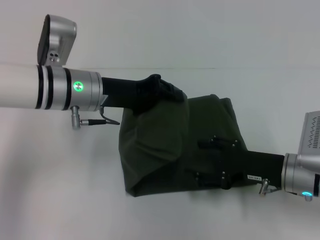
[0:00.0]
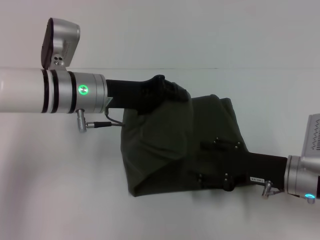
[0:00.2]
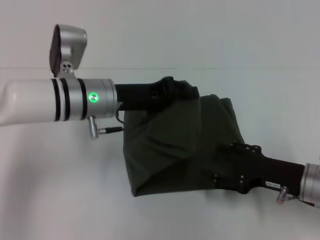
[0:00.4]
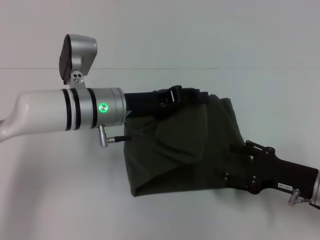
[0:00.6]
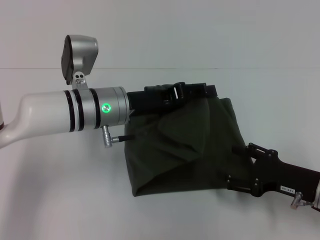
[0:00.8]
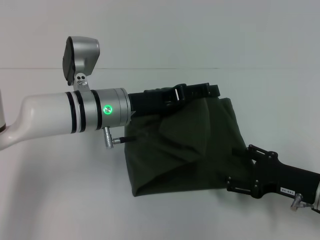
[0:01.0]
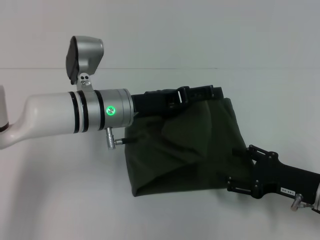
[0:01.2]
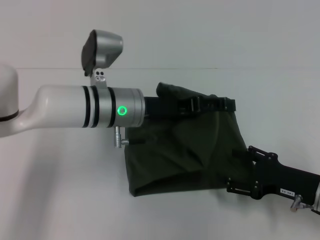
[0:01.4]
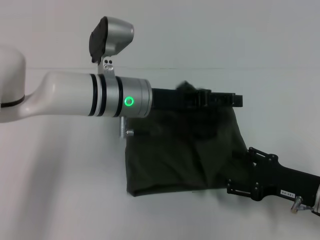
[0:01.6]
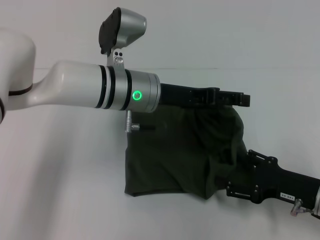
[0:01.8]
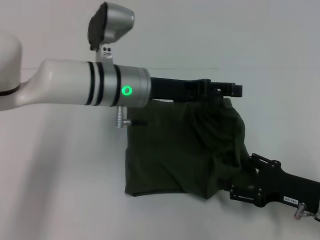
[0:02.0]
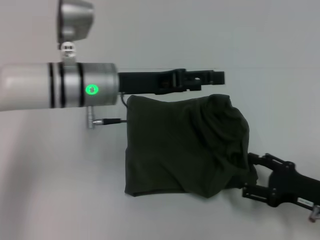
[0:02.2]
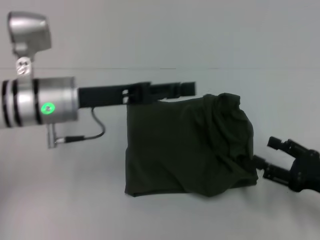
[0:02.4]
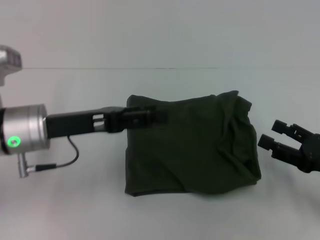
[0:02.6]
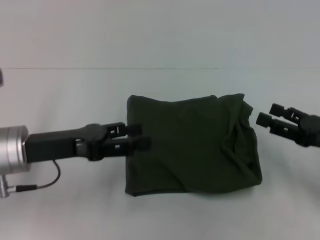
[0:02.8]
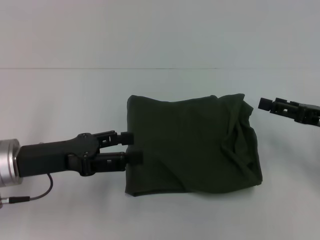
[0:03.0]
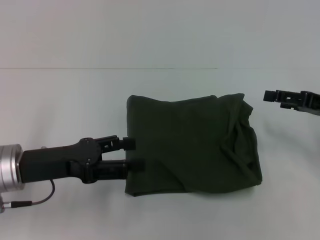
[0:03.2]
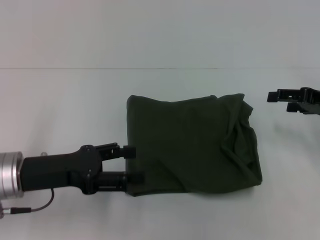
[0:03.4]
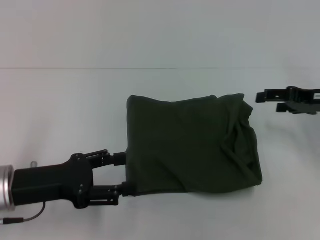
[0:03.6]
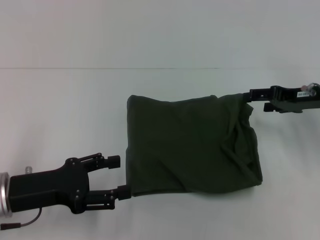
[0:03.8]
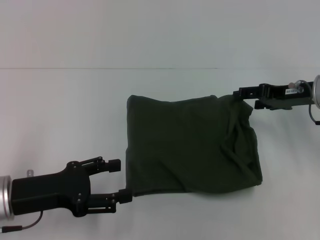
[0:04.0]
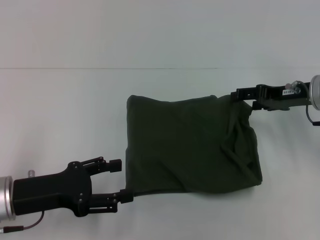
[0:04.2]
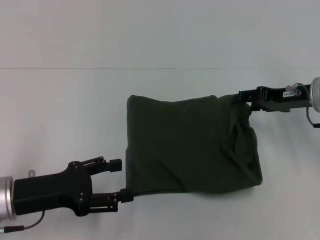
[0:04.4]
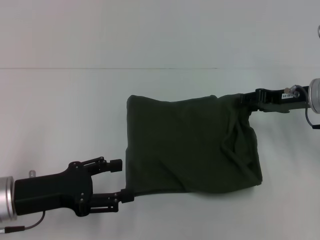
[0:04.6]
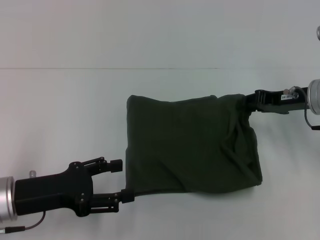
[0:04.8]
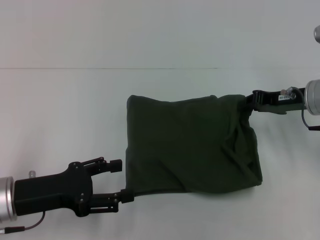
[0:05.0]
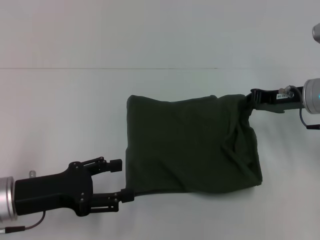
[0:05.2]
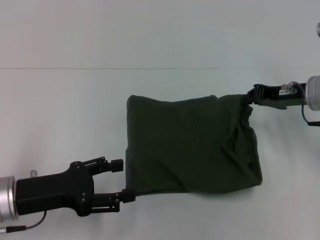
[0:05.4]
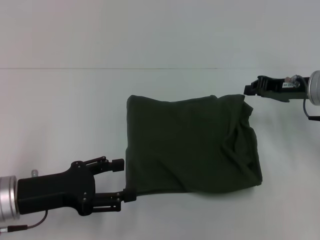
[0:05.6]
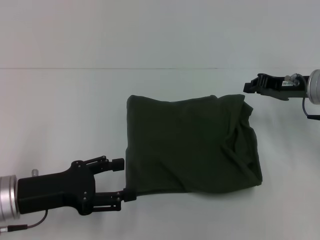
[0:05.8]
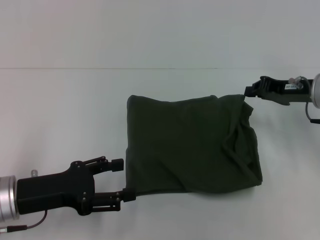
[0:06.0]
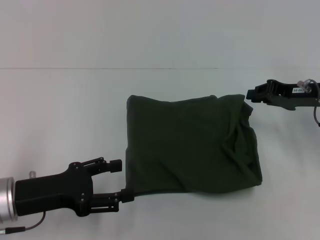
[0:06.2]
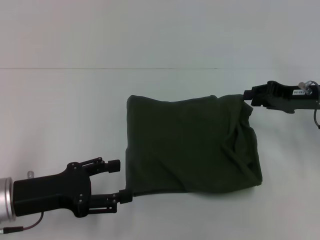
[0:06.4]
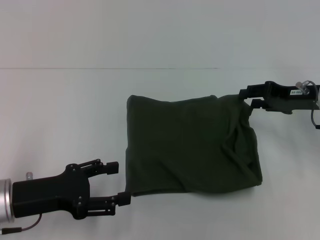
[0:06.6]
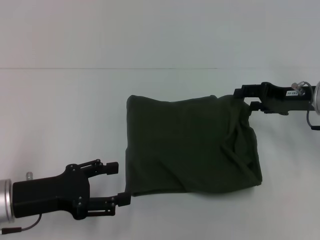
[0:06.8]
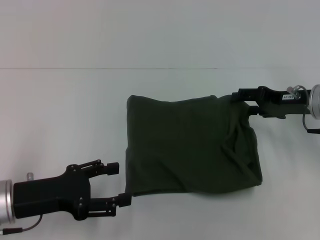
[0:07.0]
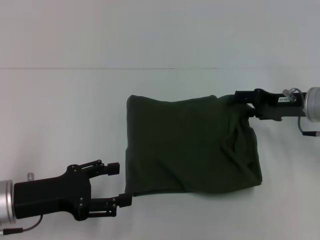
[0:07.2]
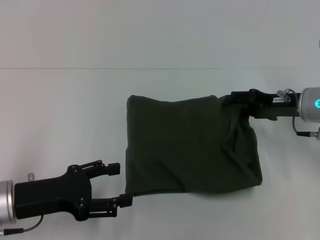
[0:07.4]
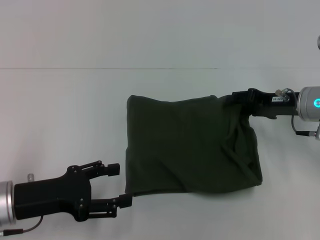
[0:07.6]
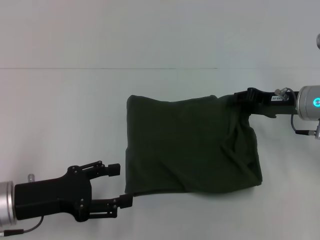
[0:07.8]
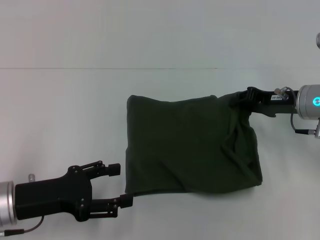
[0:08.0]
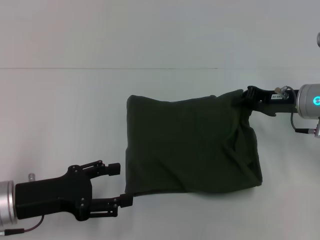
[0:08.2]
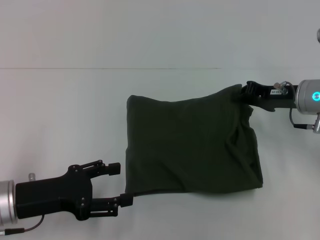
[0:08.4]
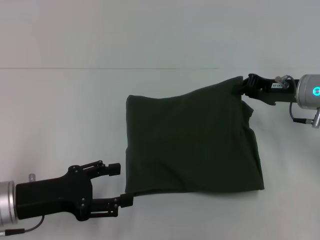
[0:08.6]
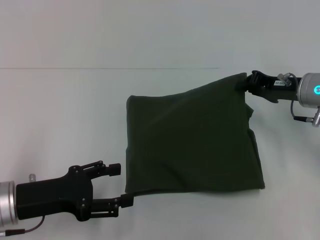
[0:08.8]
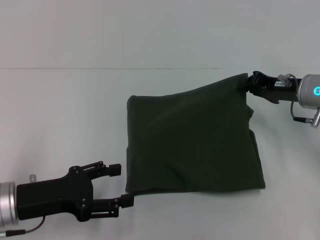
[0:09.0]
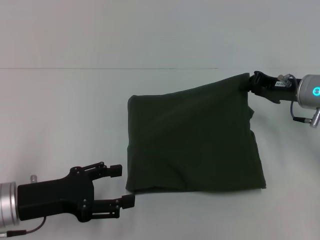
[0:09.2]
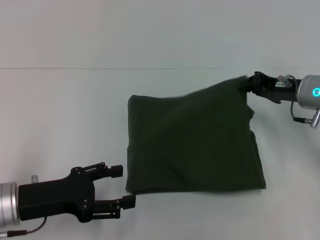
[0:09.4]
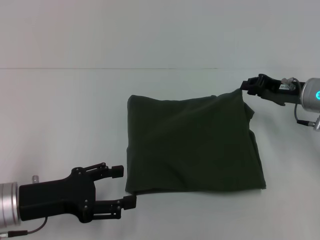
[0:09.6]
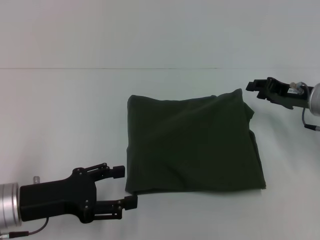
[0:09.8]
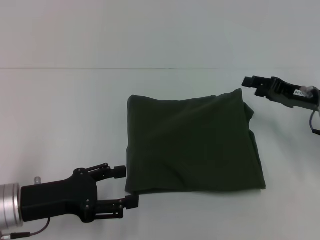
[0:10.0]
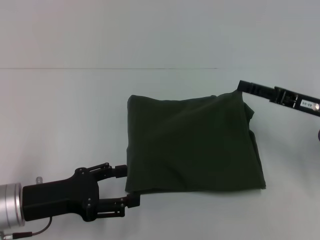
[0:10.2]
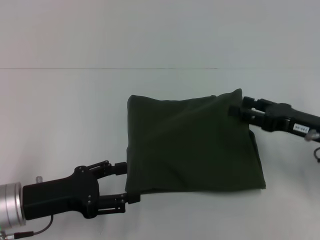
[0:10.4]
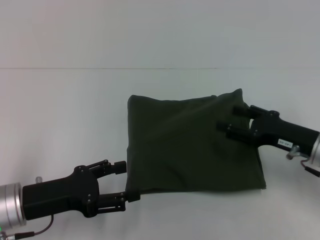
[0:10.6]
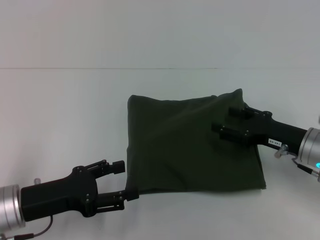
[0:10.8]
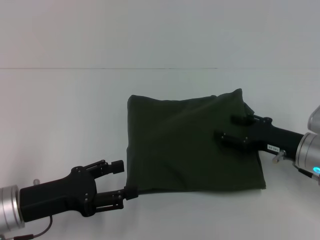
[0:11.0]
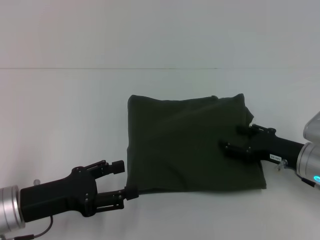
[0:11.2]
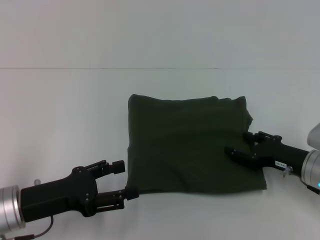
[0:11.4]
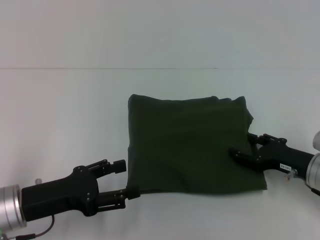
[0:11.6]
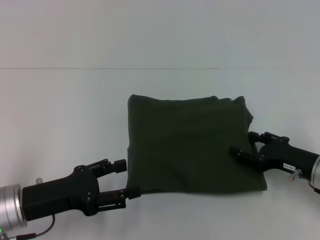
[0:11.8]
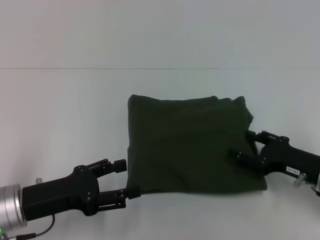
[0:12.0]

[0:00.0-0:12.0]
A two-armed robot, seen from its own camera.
Step, 0:00.0 to 0:02.6: Fold the clothes with your left hand.
0:00.0 to 0:01.6: The right gripper moves approximately 5 cm. Meanwhile the left gripper shifts roughly 5 cm to the right, and opens its fingers.
0:01.6 to 0:03.0: The right gripper shifts about 10 cm upward and to the right. The left gripper travels to the left and backward by some 20 cm.
0:03.0 to 0:04.4: The right gripper travels forward and to the left by roughly 10 cm, while the left gripper shifts by roughly 5 cm.
0:04.4 to 0:06.0: The right gripper closes up.
0:06.0 to 0:07.6: The right gripper opens its fingers.
0:07.6 to 0:09.0: The right gripper closes.
0:09.0 to 0:10.4: The right gripper travels backward by roughly 10 cm, and opens.
0:10.4 to 0:12.0: The right gripper heads downward, covering roughly 5 cm.

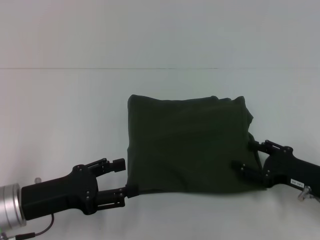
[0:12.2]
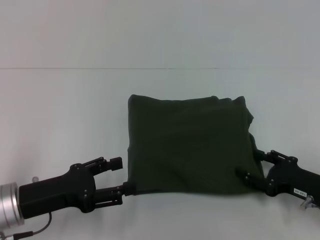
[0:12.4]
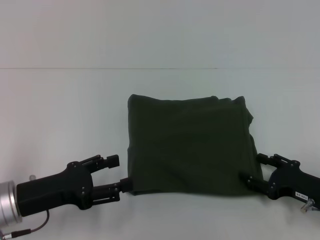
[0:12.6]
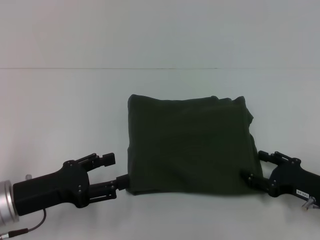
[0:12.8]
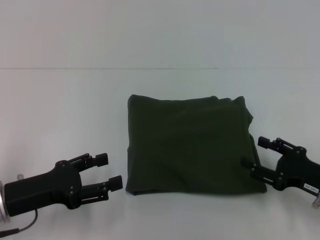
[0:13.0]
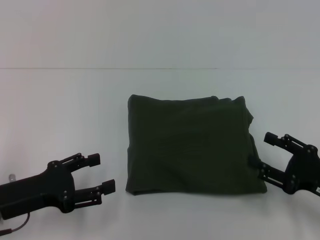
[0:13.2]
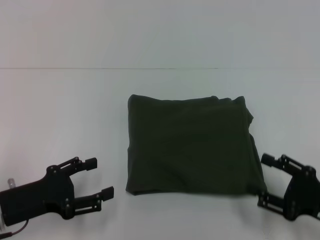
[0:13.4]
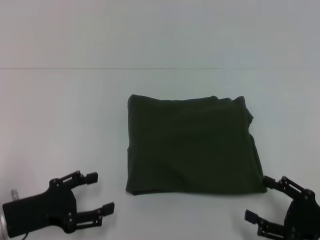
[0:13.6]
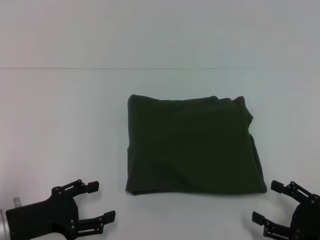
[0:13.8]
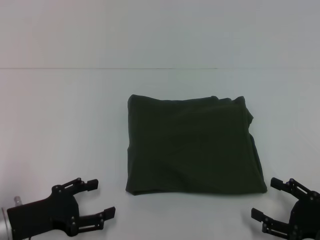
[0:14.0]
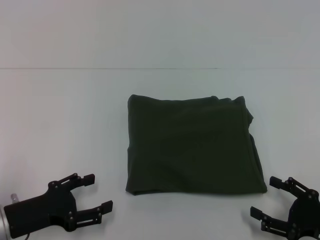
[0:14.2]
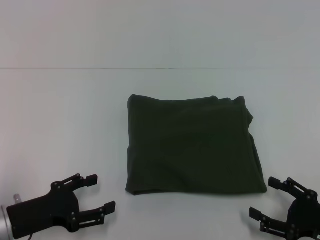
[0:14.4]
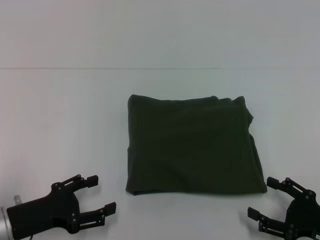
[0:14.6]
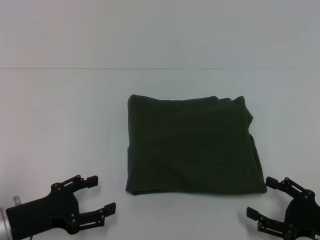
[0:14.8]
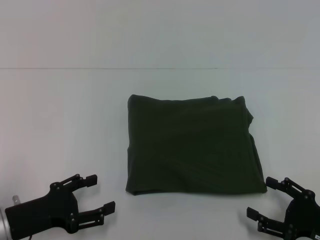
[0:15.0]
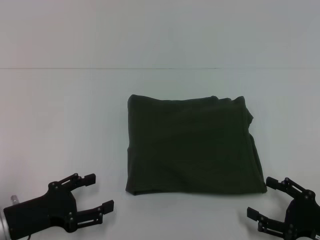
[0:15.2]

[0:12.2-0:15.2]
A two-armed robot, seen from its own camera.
0:12.2 to 0:13.8: The right gripper shifts some 10 cm backward.
0:13.8 to 0:15.2: The grippers stay close to where they were, moving slightly.

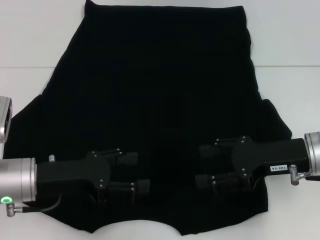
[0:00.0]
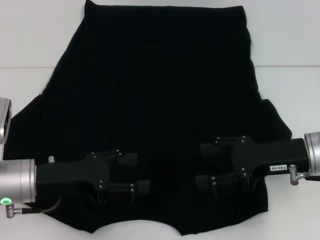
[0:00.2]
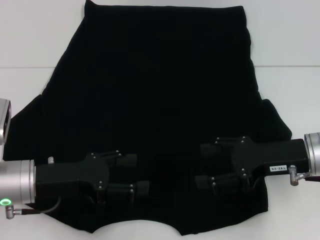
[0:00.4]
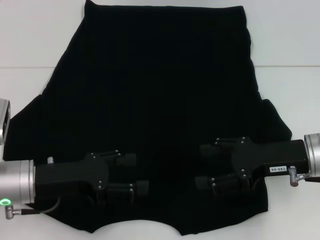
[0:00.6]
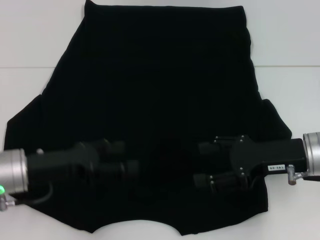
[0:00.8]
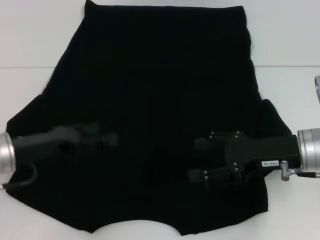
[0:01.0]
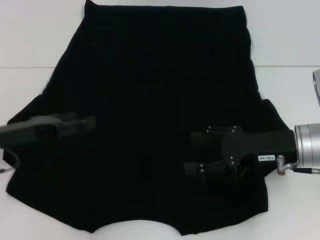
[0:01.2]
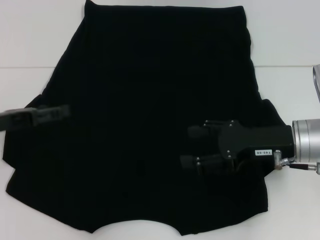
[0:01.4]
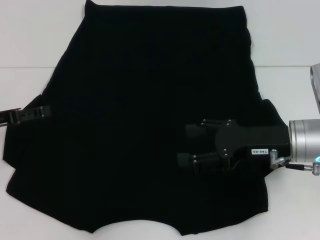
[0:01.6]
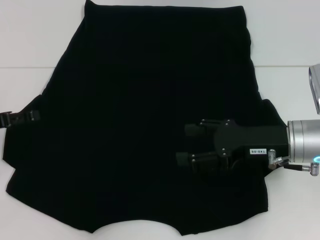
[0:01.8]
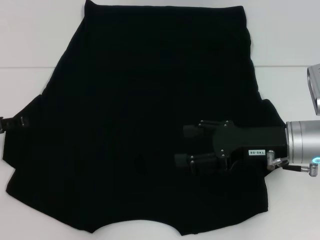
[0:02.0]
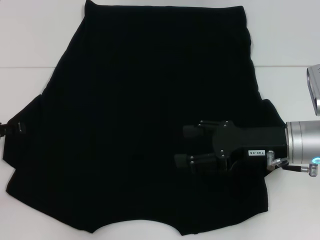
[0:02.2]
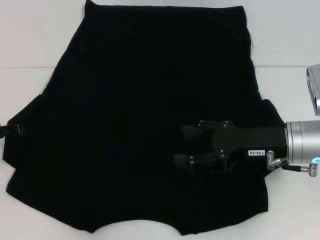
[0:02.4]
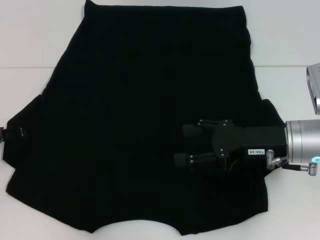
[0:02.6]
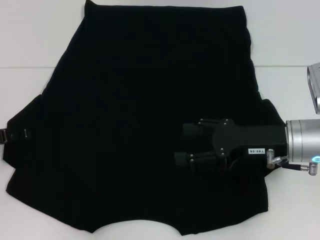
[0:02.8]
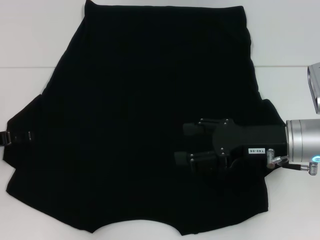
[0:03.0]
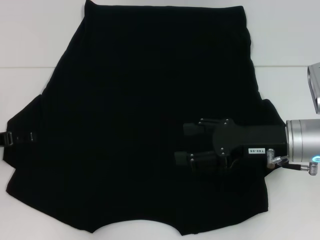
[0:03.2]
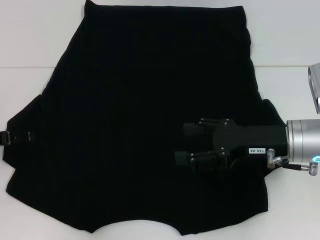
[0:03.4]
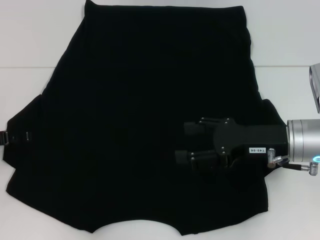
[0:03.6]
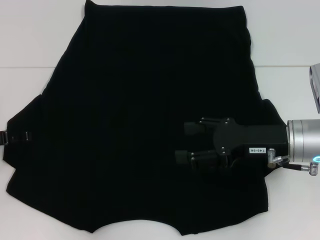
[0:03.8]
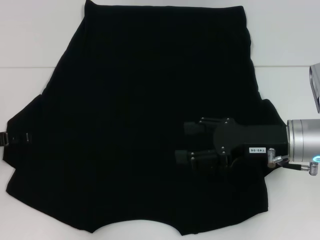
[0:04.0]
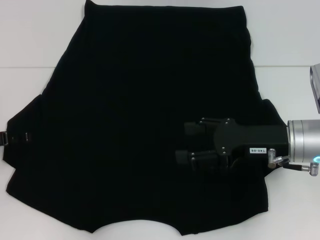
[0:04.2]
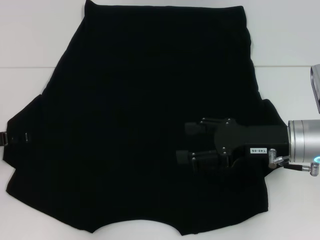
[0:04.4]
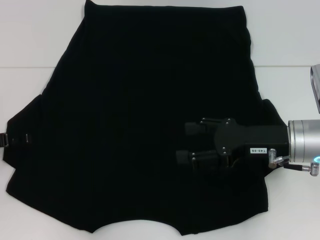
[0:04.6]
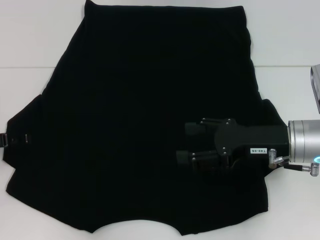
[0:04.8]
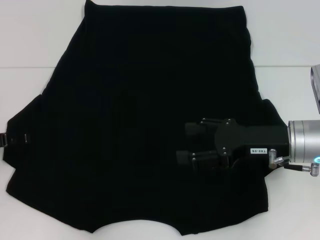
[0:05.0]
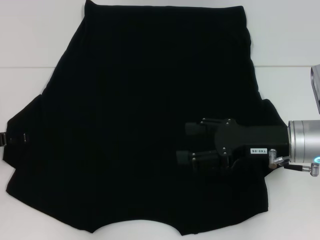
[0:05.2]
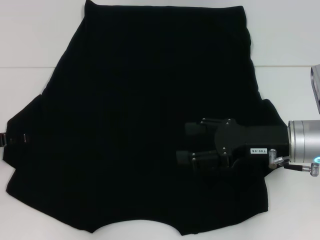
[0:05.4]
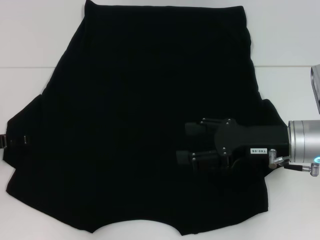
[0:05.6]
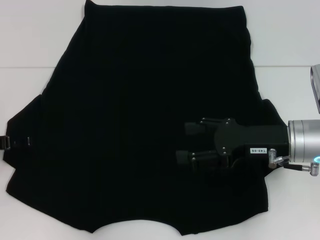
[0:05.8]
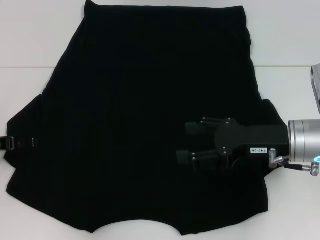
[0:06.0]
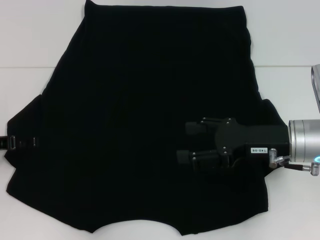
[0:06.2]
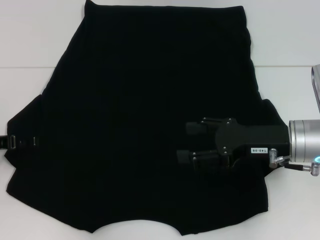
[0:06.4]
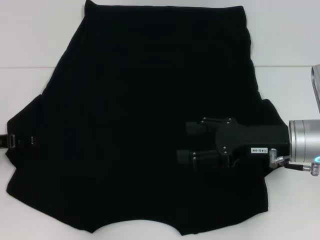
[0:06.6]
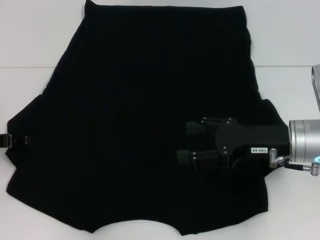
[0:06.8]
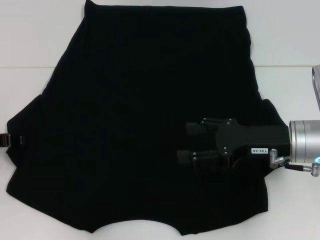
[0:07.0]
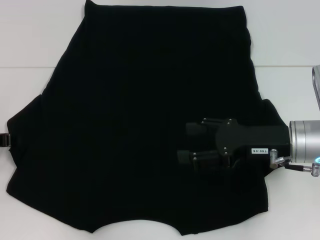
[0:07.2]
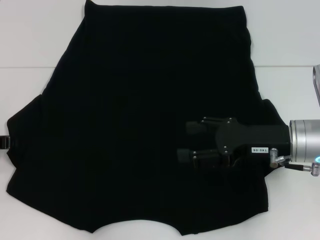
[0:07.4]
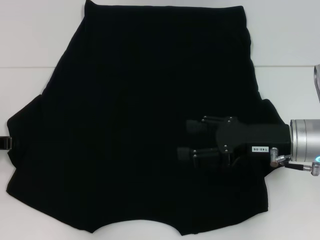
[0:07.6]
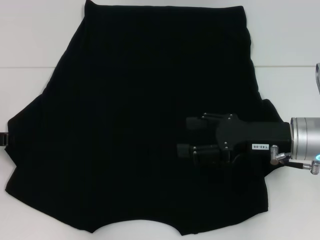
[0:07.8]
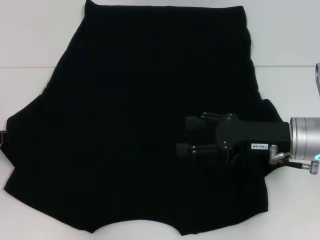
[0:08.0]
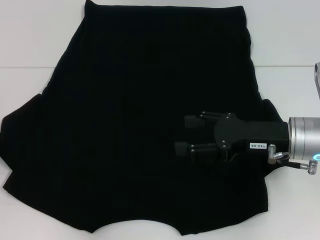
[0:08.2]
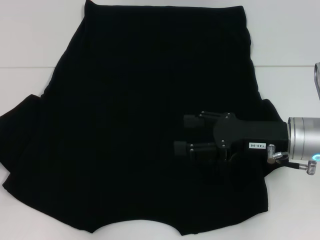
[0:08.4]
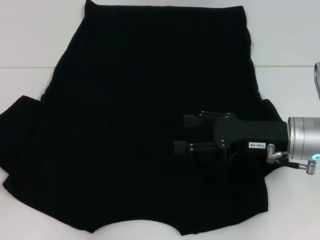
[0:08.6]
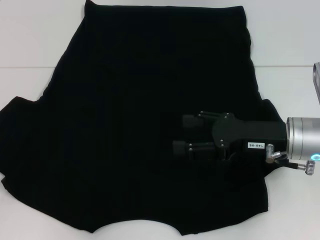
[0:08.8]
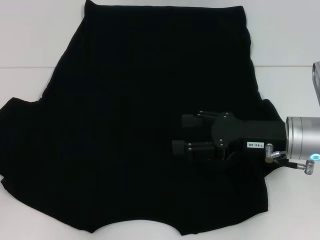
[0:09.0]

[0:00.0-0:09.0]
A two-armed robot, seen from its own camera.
0:00.0 to 0:01.6: The left gripper heads to the left, covering about 10 cm.
0:01.6 to 0:03.0: The grippers move only a little.
0:03.0 to 0:04.4: Both grippers stay about where they are.
0:04.4 to 0:06.0: Both grippers stay about where they are.
0:07.6 to 0:09.0: There are only small adjustments of the grippers.
